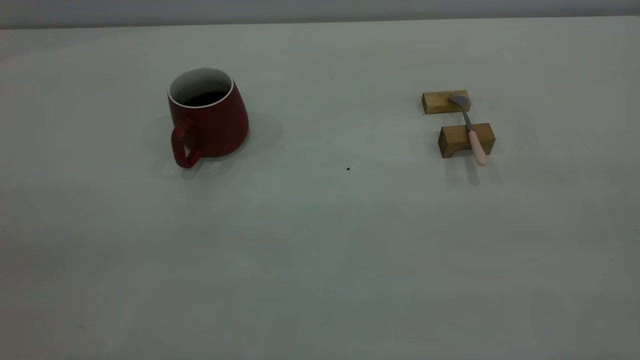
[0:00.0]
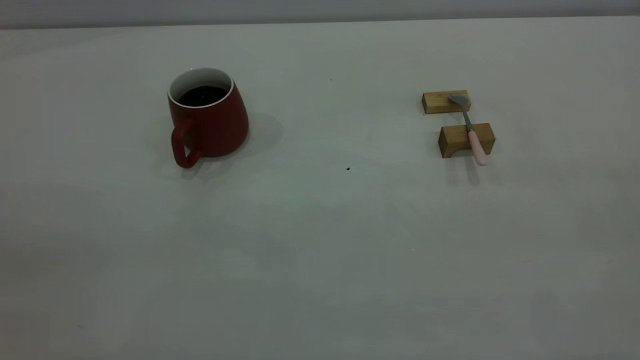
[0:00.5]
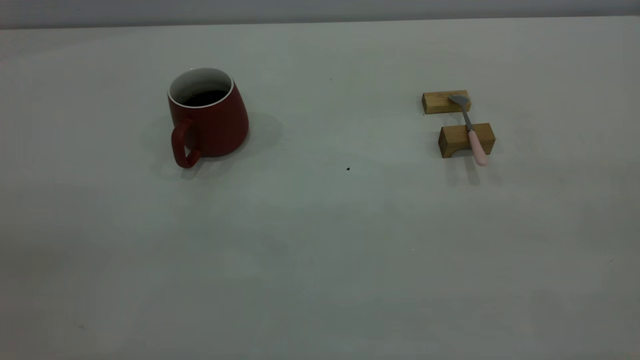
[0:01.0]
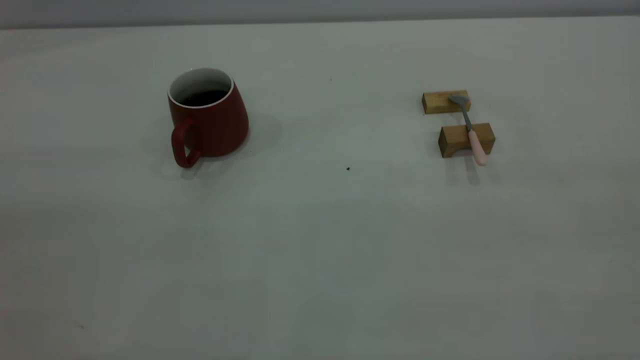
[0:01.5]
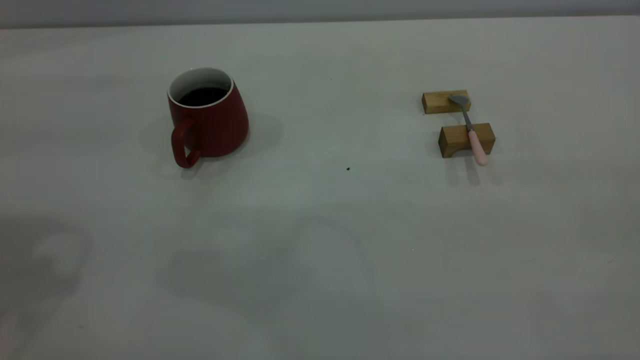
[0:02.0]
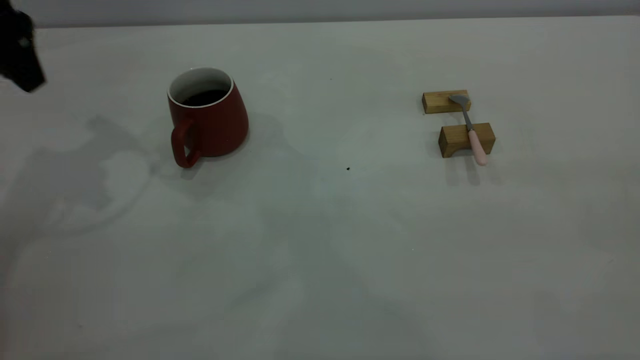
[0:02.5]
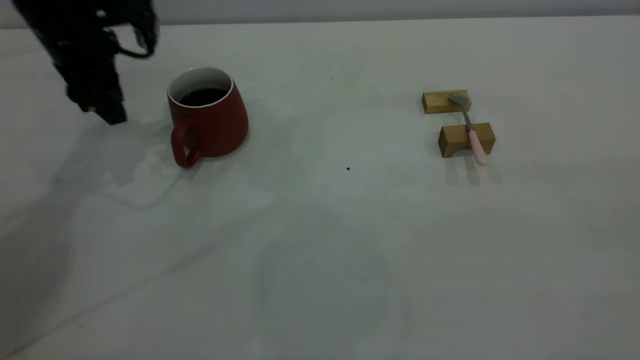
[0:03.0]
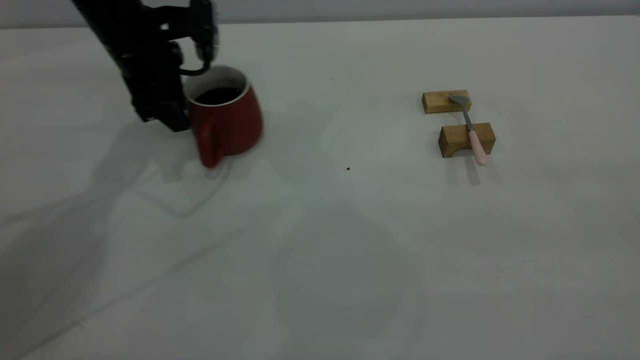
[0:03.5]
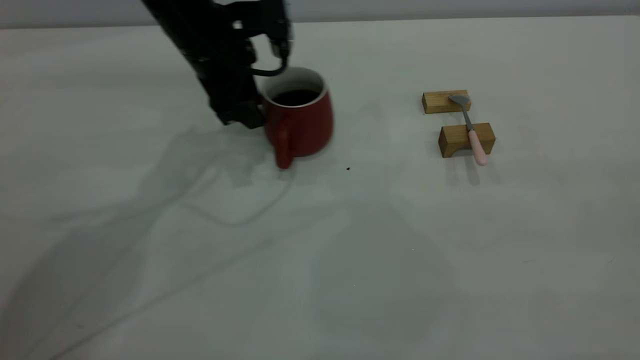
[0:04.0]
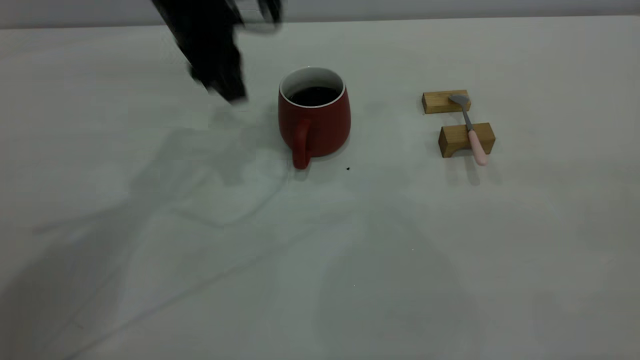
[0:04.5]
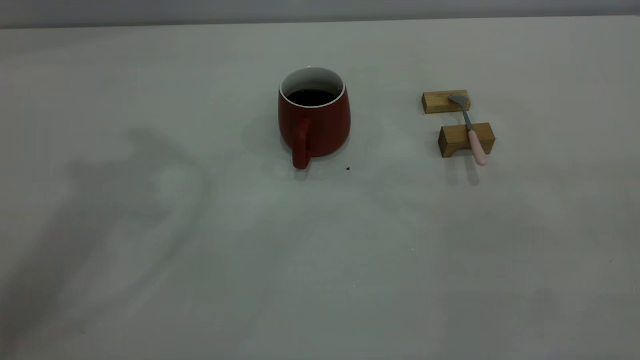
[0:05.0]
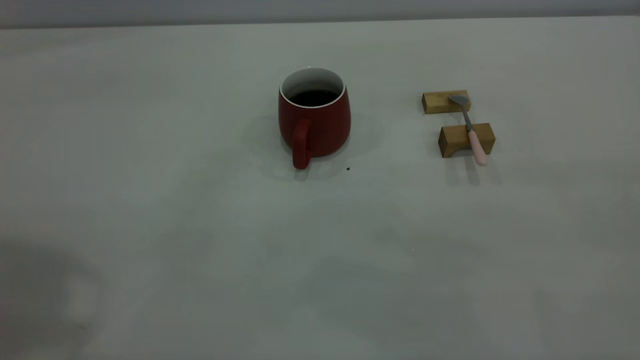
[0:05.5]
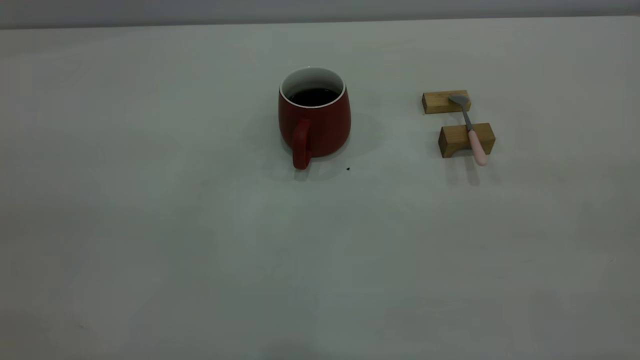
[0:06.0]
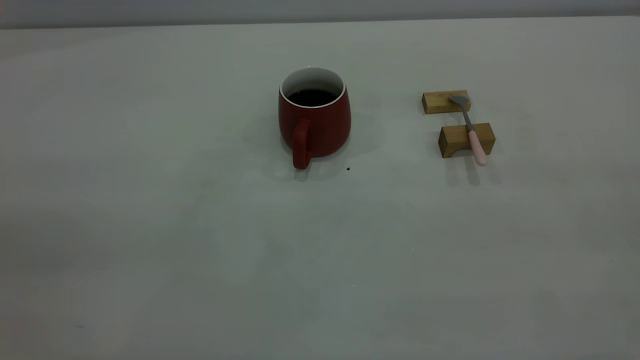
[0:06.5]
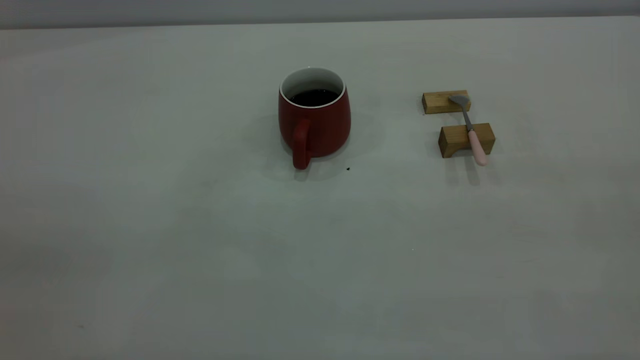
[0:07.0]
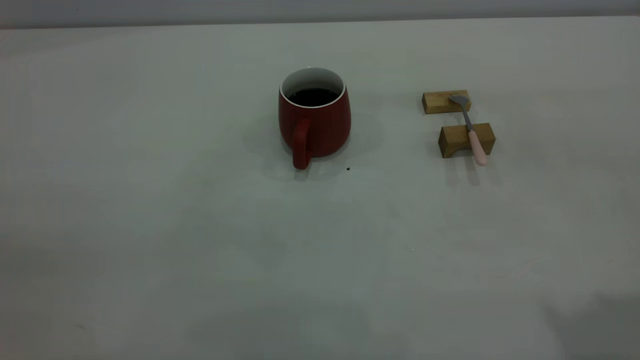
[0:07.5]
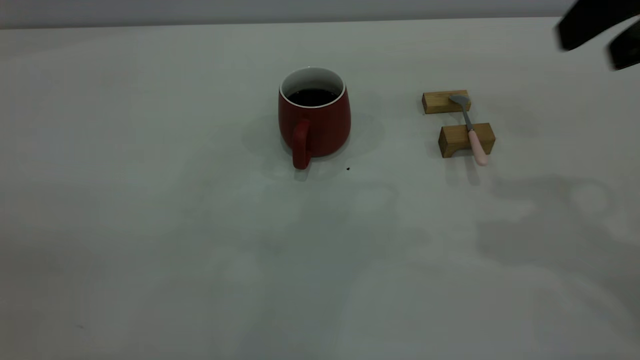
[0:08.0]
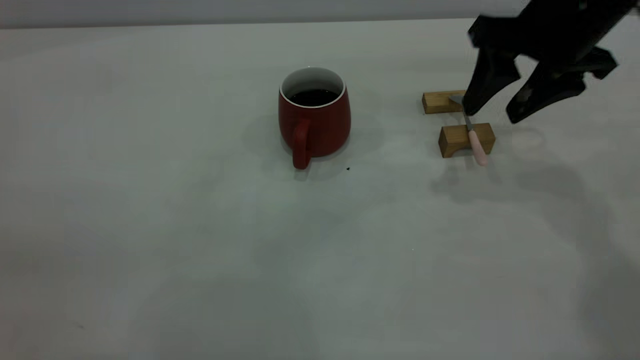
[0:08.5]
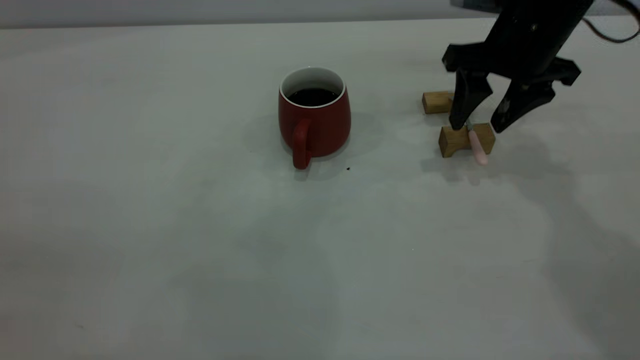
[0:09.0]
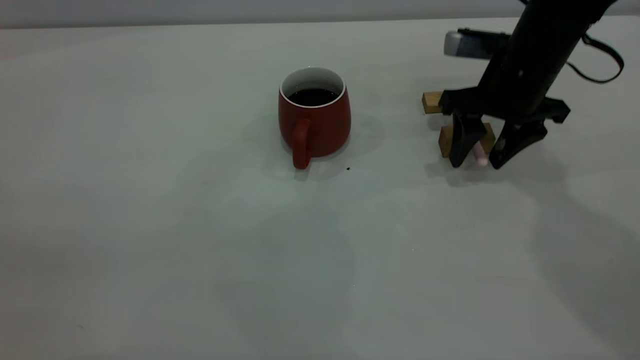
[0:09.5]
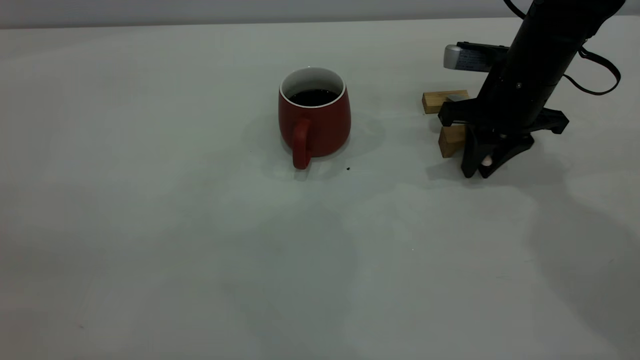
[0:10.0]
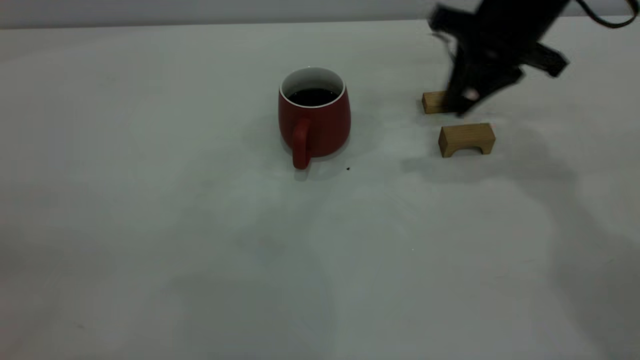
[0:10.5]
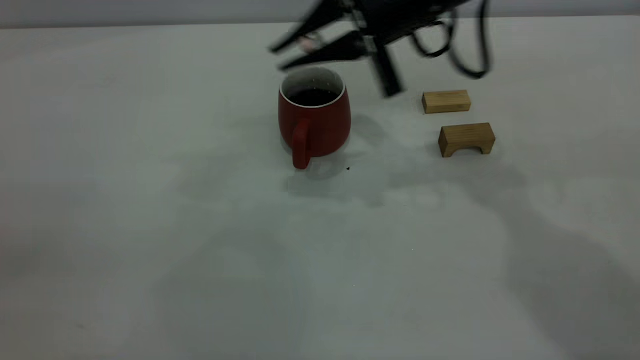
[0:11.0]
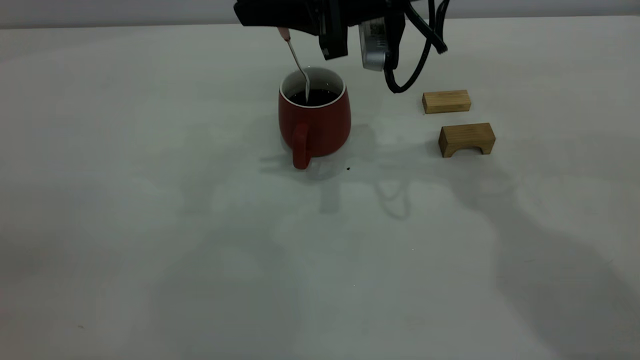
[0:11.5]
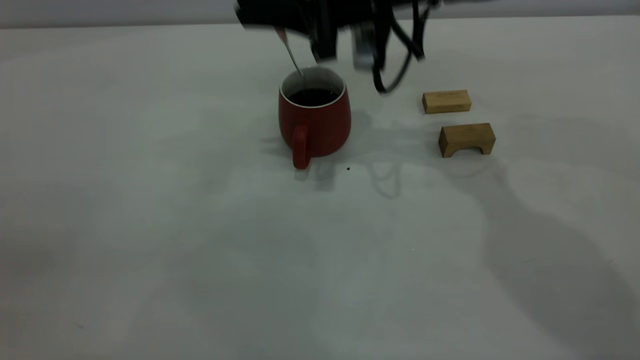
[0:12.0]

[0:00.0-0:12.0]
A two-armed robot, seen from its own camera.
Step, 0:00.0 to 0:04.5: Move the cup with coffee to the center of view.
Step, 0:05.0 to 0:10.0: Pick up the spoon.
0:02.0 to 0:04.0: The left gripper heads forward, downward and to the right, covering some 35 cm.
0:04.0 to 0:06.0: The left gripper shifts some 50 cm backward, upward and to the left.
0:06.0 to 0:08.0: The right gripper travels forward by about 25 cm, and opens.
0:08.0 to 0:10.0: The right gripper goes roughly 25 cm downward and forward, and closes up.
0:10.0 to 0:12.0: The right gripper shifts about 15 cm to the left and upward.

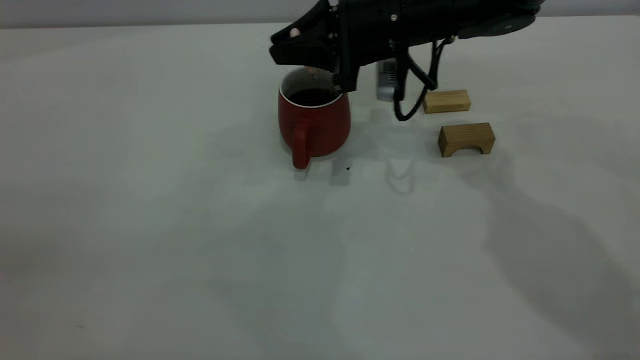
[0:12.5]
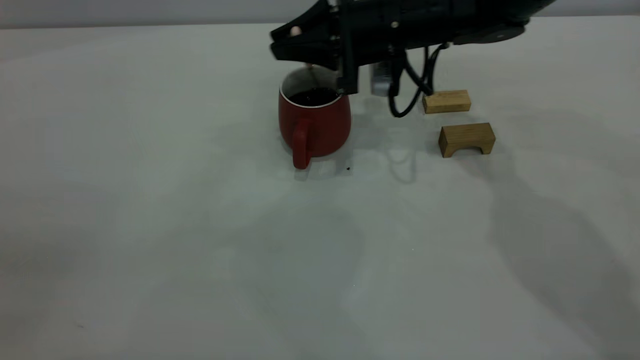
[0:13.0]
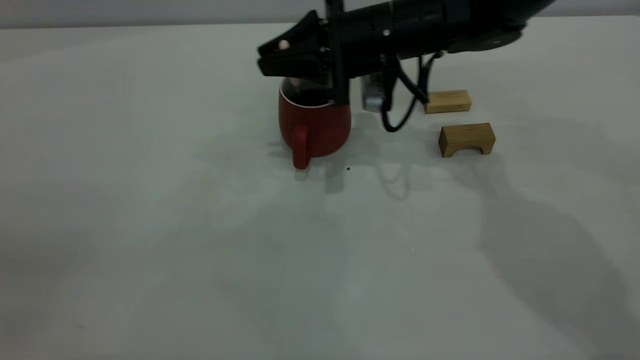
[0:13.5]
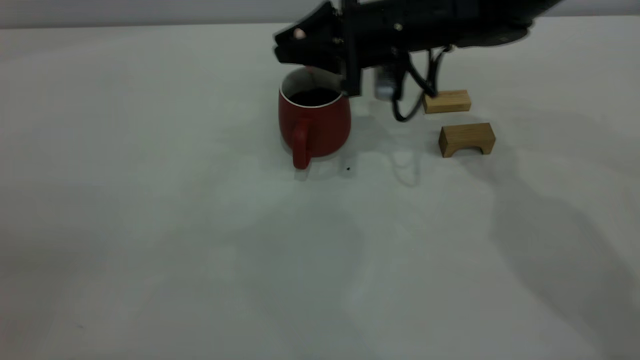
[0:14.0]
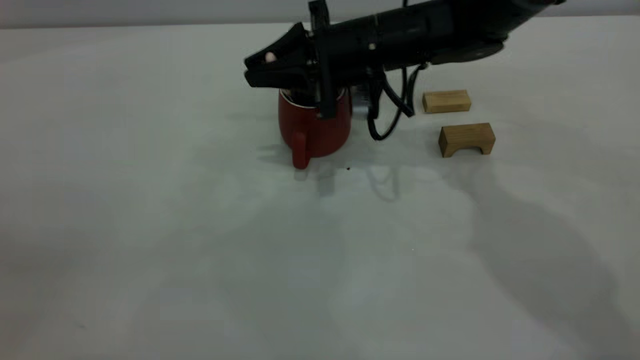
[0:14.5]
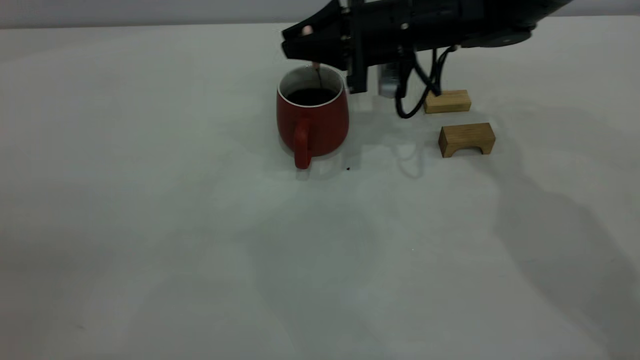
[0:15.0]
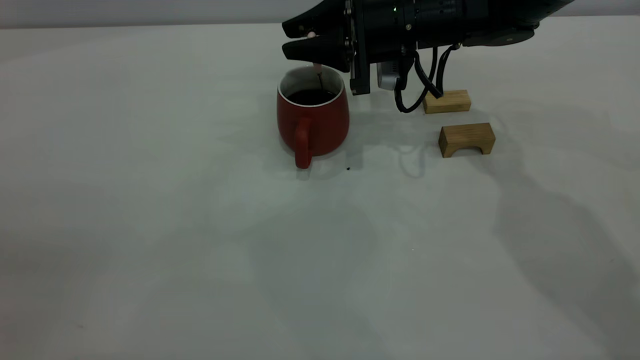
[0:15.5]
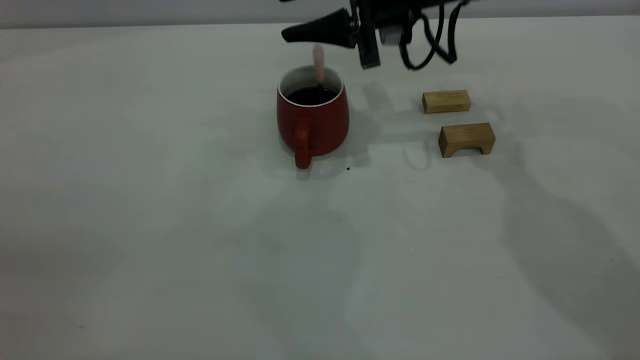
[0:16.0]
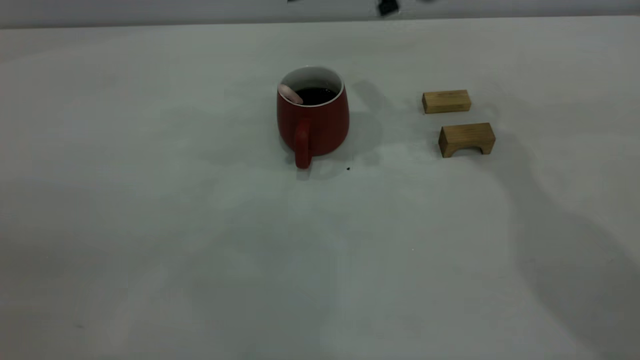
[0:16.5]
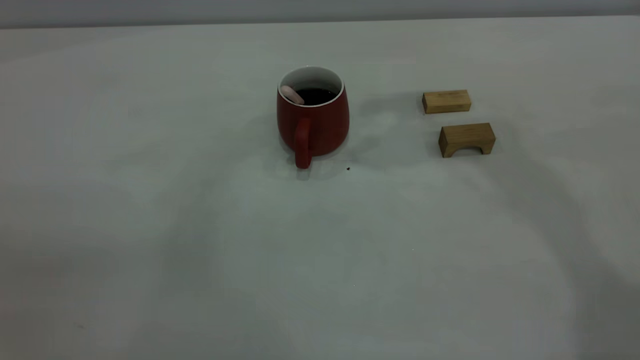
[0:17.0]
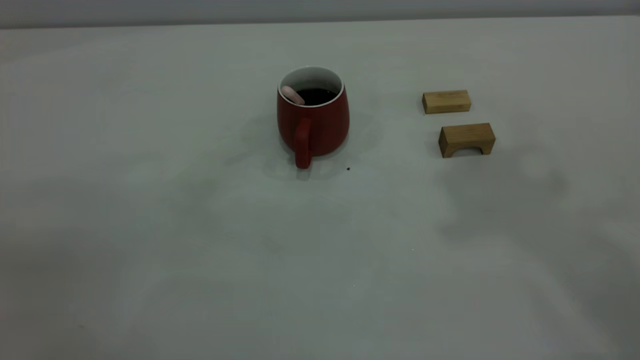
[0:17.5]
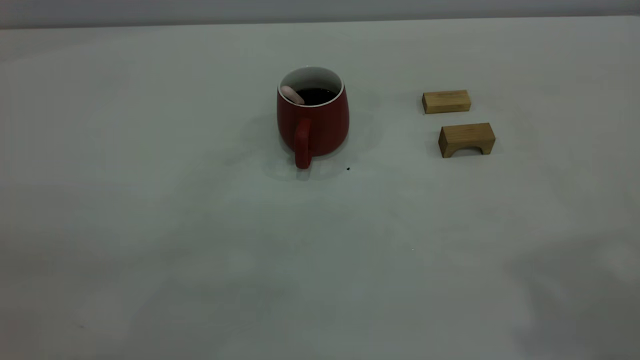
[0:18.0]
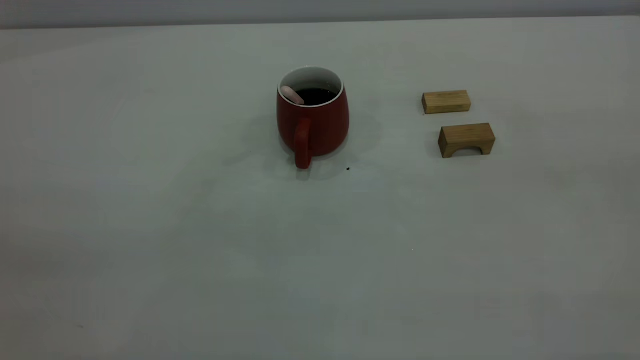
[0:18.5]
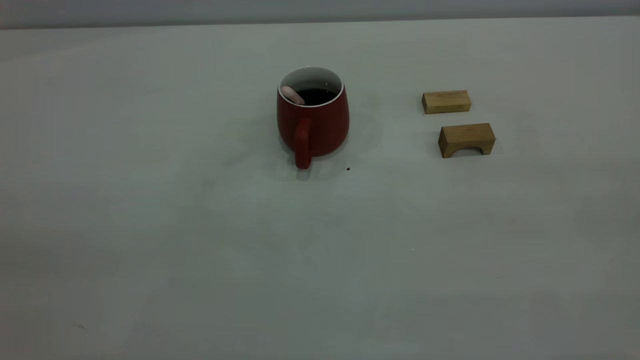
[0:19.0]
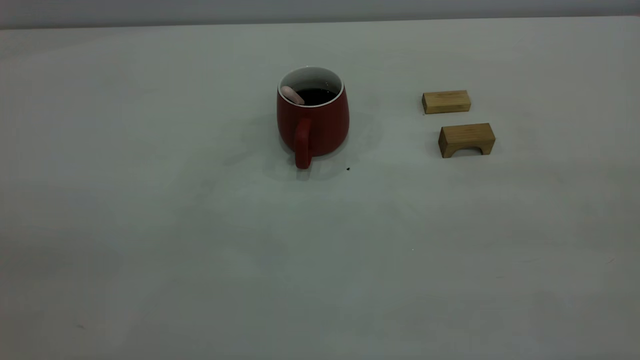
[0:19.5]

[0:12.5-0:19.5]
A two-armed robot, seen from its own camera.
Step, 0:12.5 to 0:16.0: Stir the coffee in the cup.
0:12.5 to 0:14.5: The grippers stay close to where they were, moving slightly.
0:14.5 to 0:16.0: The right gripper is displaced upward by roughly 5 cm, and opens.
0:16.0 to 0:17.5: The right gripper heads upward and backward, covering some 40 cm.
